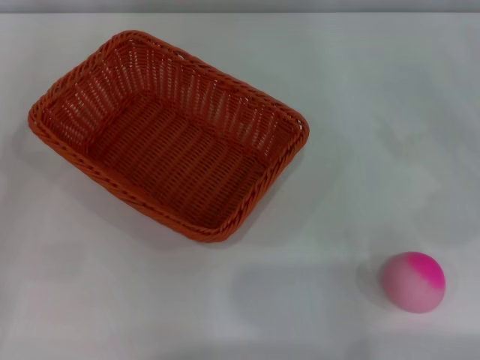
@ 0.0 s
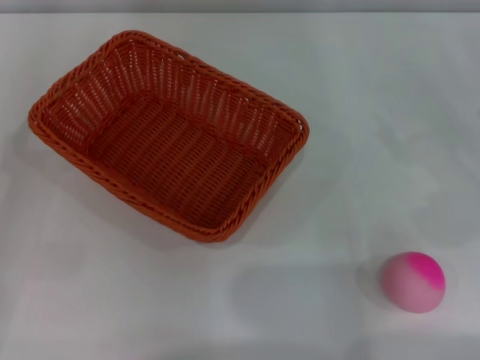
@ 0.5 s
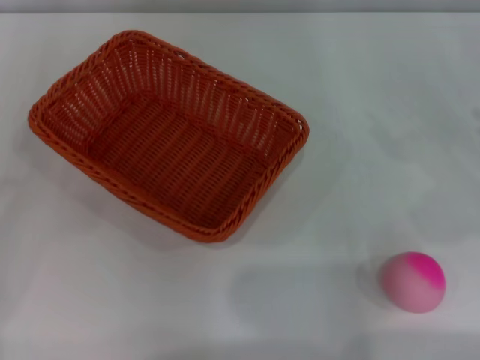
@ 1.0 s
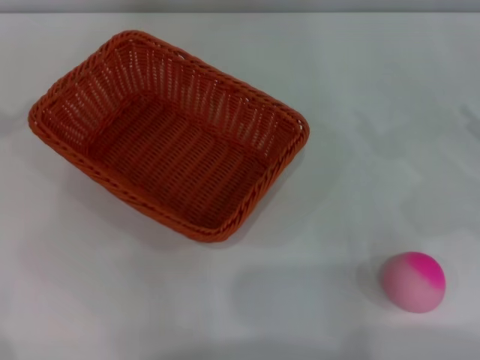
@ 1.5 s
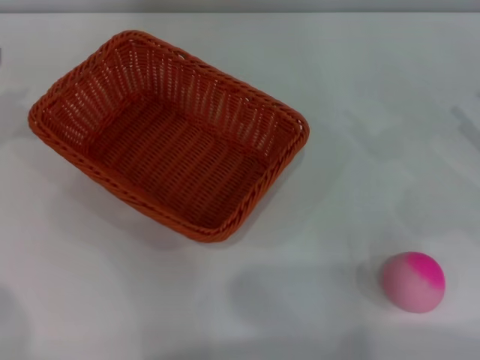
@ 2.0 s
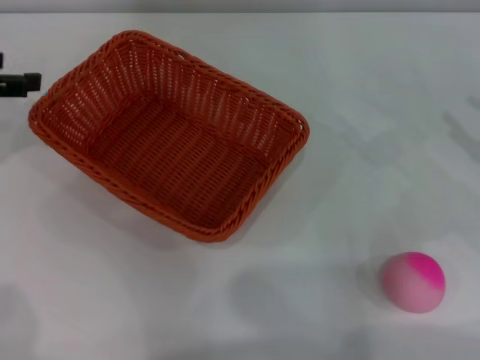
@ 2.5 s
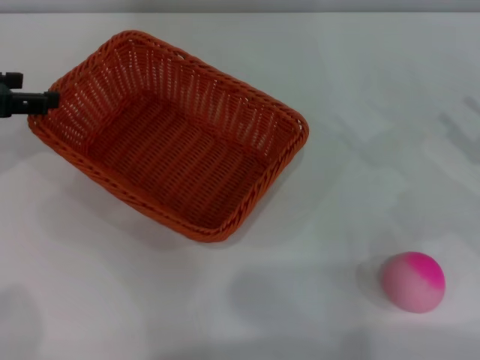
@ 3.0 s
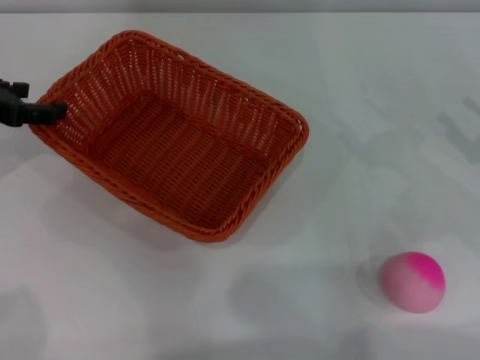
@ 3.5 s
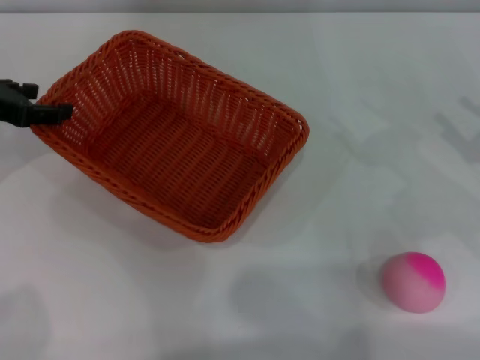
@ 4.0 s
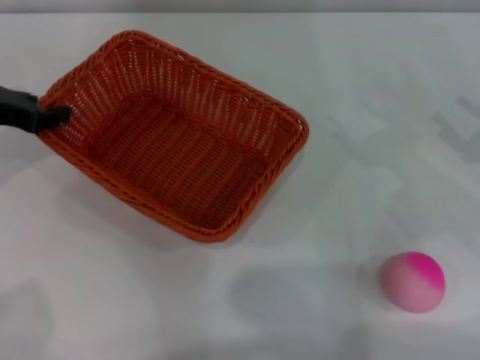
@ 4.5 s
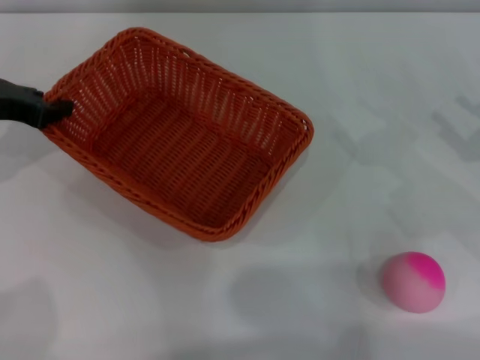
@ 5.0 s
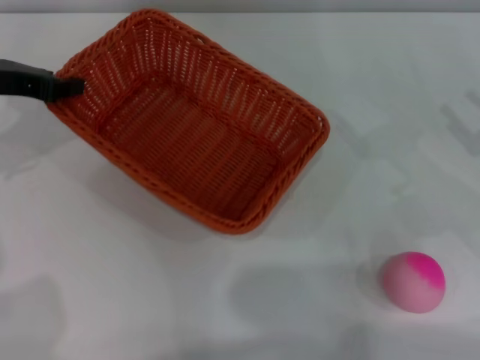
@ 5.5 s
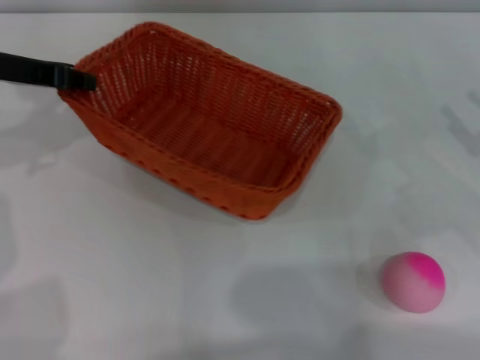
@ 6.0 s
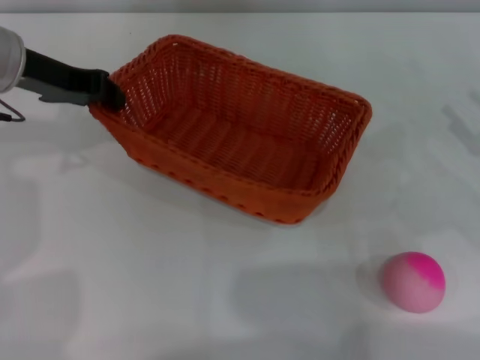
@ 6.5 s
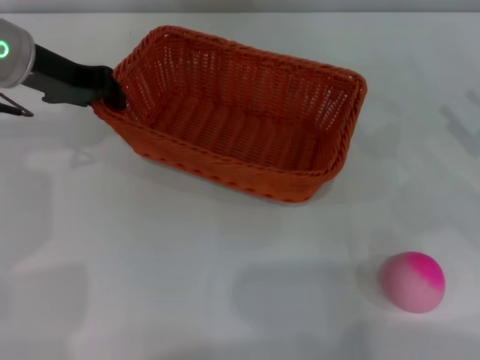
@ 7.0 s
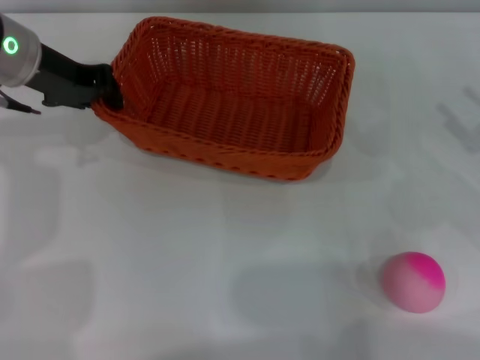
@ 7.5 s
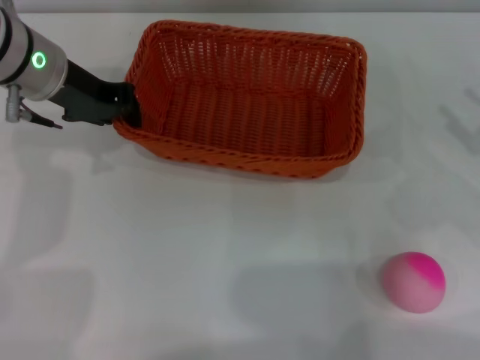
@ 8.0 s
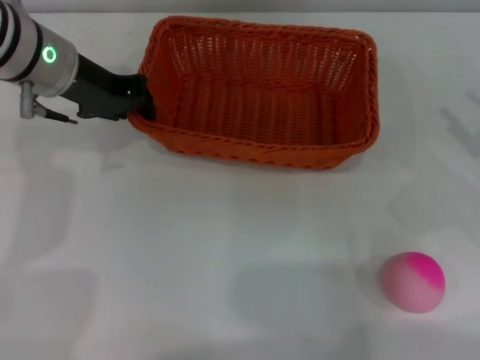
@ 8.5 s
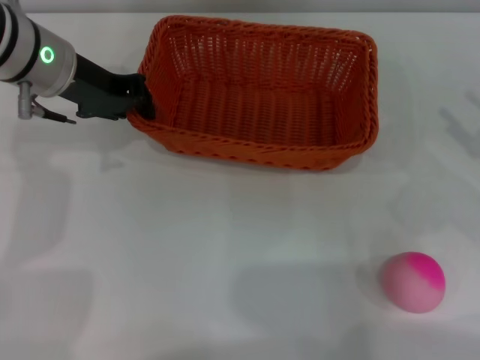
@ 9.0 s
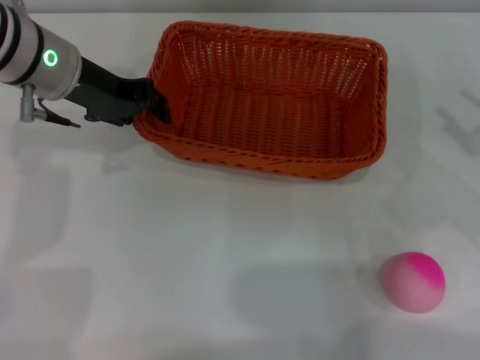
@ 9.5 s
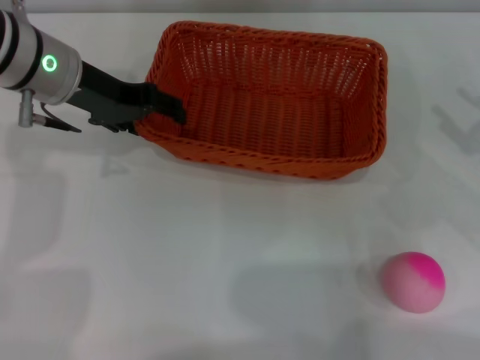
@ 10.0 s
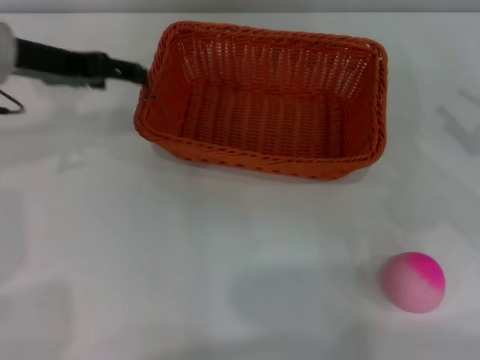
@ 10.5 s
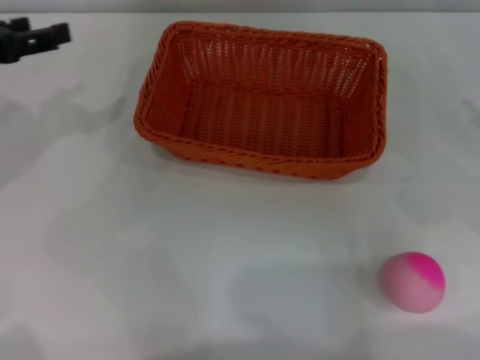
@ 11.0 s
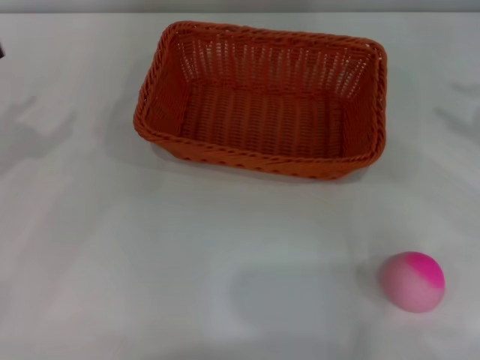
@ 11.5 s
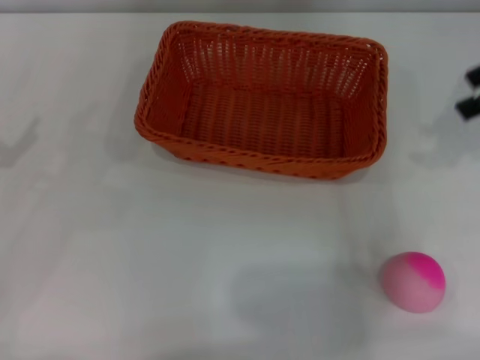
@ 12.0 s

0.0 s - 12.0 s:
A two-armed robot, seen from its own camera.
Step, 0.0 s - 5.5 s: Pick up the light basket with the left gripper.
Step, 6.0 s - 10.5 s: Place the light basket in the center of view with the right gripper.
2.0 s - 4.0 s: The left gripper is displaced downward by about 5 cm.
4.0 s - 6.0 s: The left gripper travels to the right by roughly 5 cm, and closes its fingers.
6.0 s - 8.0 s: The left gripper heads to the right, covering some 10 cm.
8.0 s - 10.0 s: The left gripper opens its fingers.
10.0 s - 12.0 s: The left gripper shifts roughly 25 cm to the left and backward. The right gripper shifts about 20 cm upward and forward.

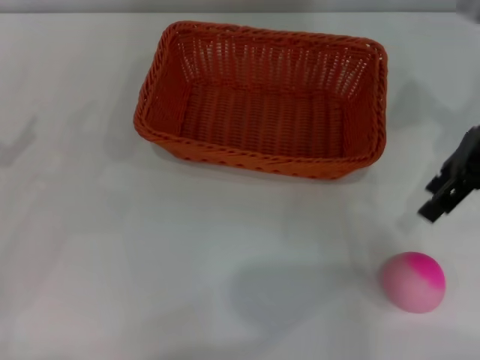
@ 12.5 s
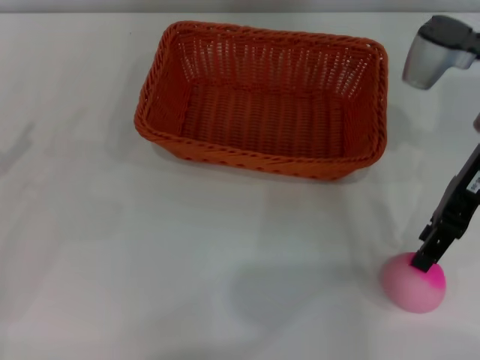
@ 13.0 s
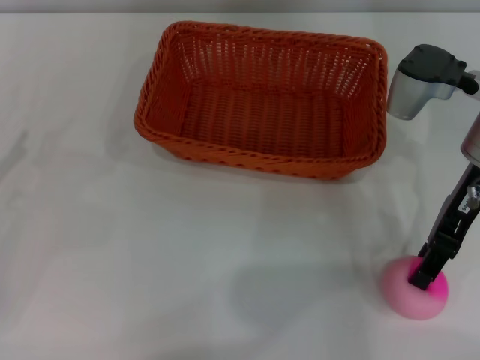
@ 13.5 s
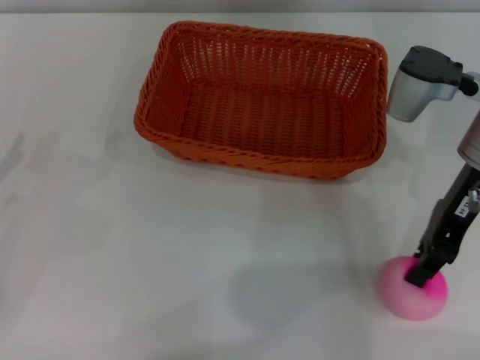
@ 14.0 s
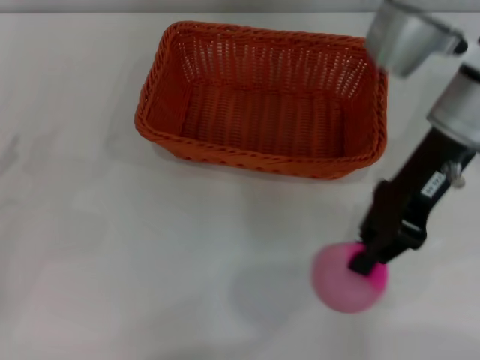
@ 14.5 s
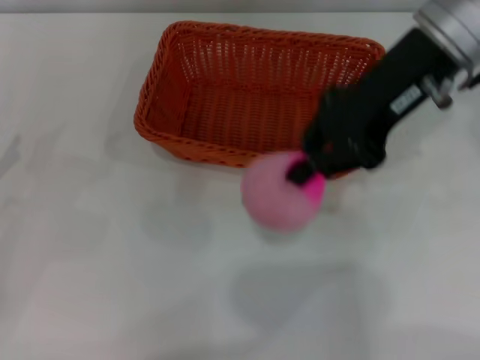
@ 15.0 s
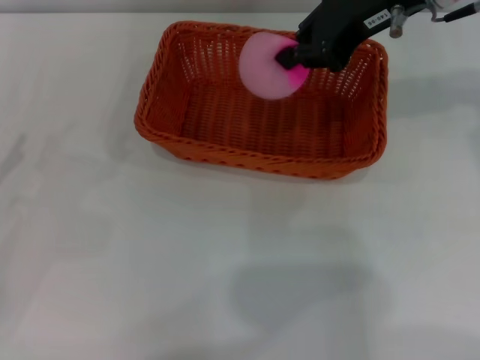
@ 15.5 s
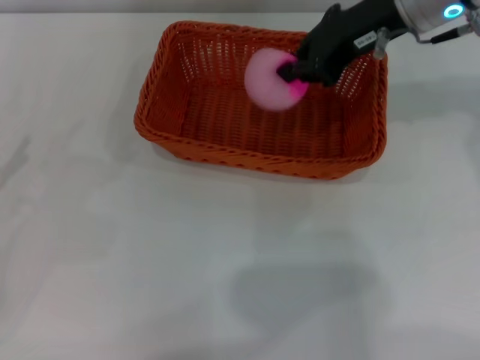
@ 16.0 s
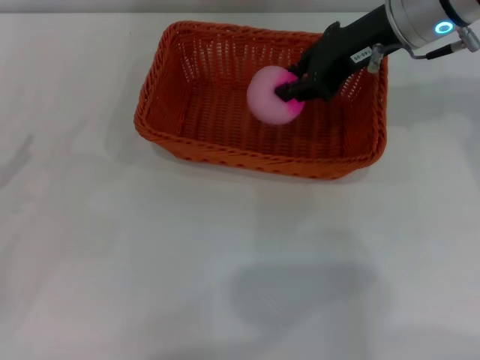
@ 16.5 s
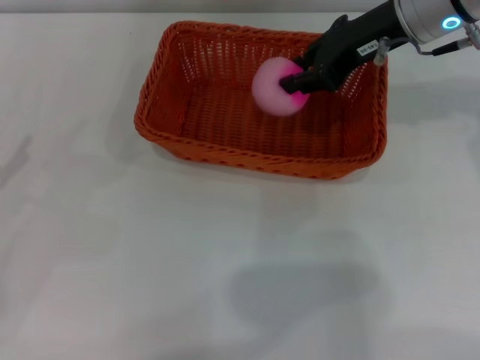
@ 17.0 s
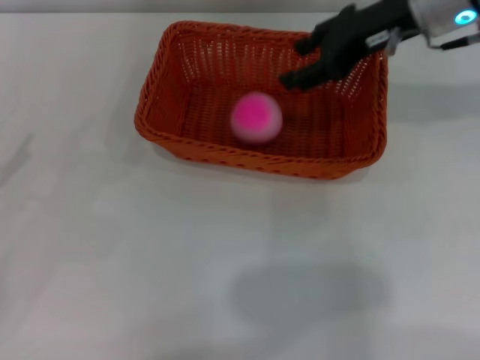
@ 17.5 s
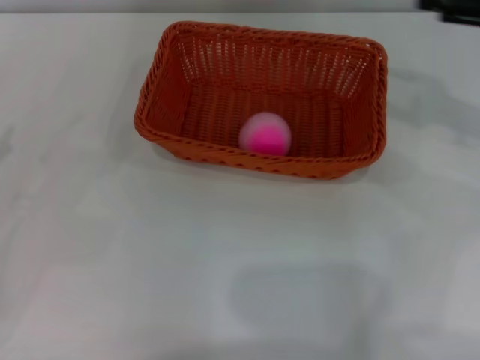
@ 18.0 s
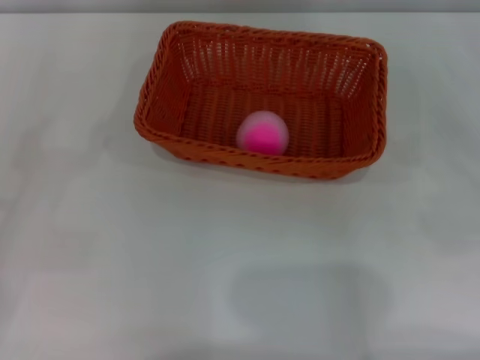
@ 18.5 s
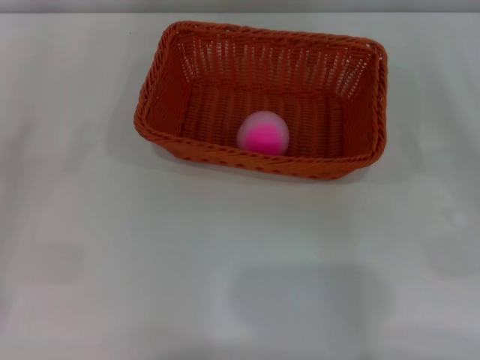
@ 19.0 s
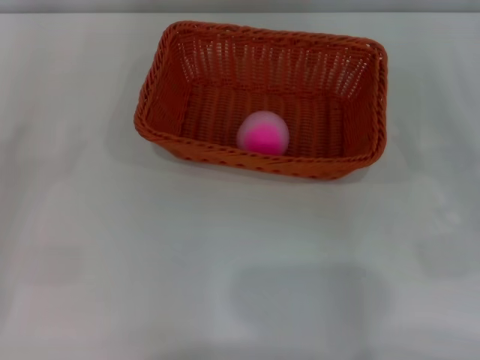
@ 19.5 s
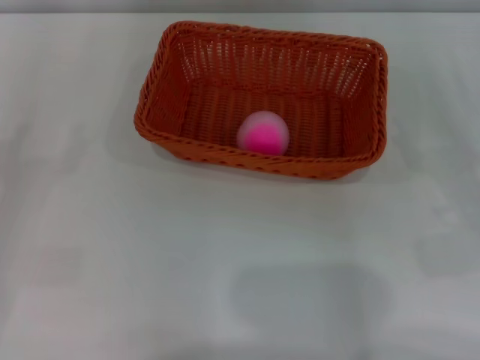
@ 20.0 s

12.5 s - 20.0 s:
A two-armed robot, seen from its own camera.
Step, 15.0 s - 17.5 s: Place the peach into the basket with the left gripper.
12.5 s - 14.5 s: The right gripper goes about 10 cm to the left, and closes up.
14.5 s - 16.5 s: The right gripper travels forward by some 5 cm.
16.5 s - 18.0 s: The right gripper travels to the right and backward by about 15 cm, and opens up.
18.0 s - 20.0 s: The right gripper travels downward and backward by some 20 cm.

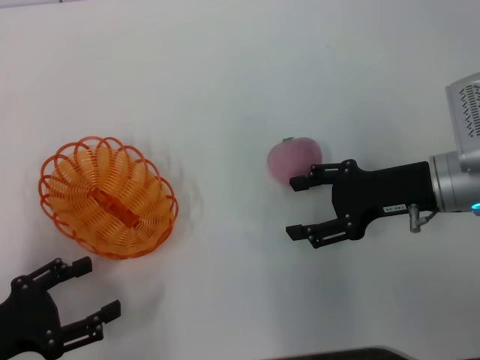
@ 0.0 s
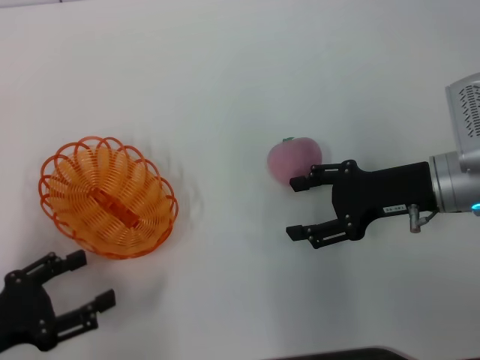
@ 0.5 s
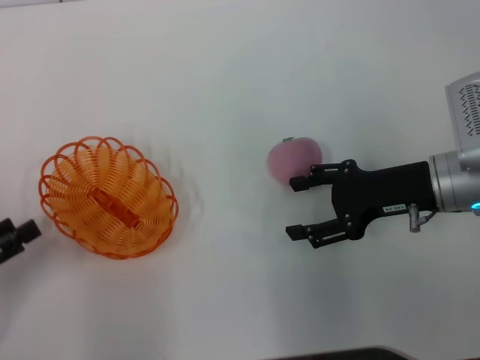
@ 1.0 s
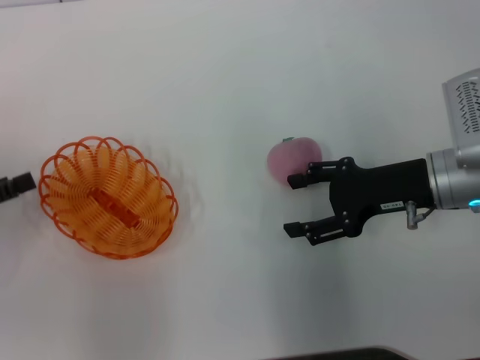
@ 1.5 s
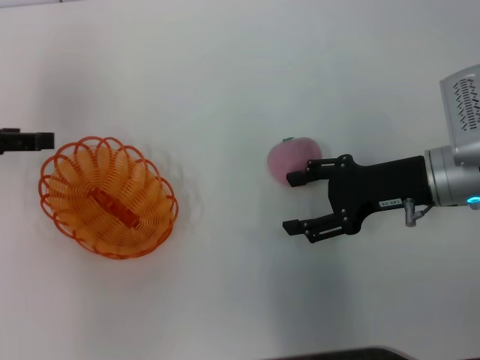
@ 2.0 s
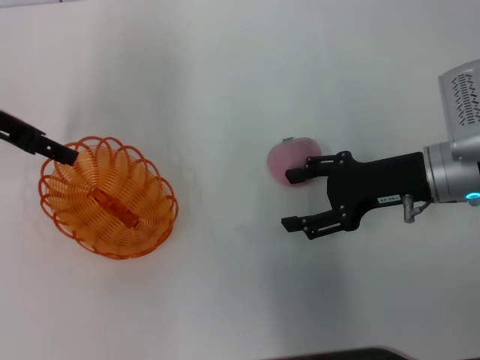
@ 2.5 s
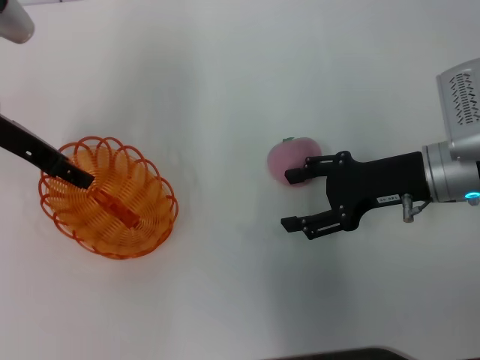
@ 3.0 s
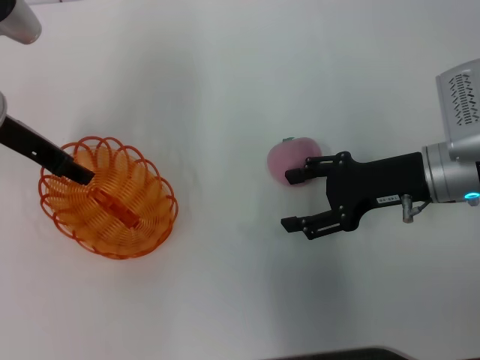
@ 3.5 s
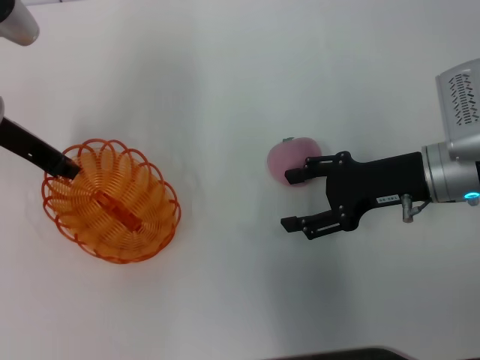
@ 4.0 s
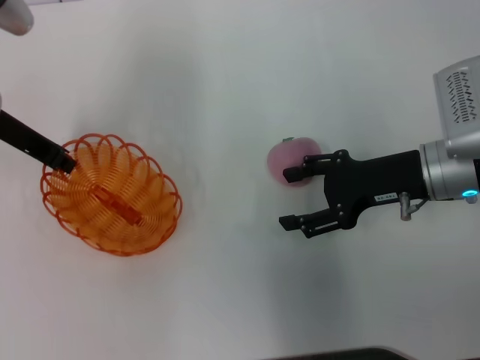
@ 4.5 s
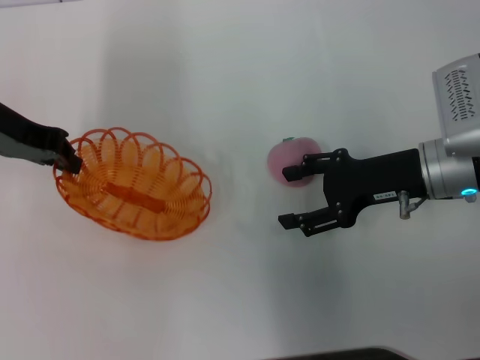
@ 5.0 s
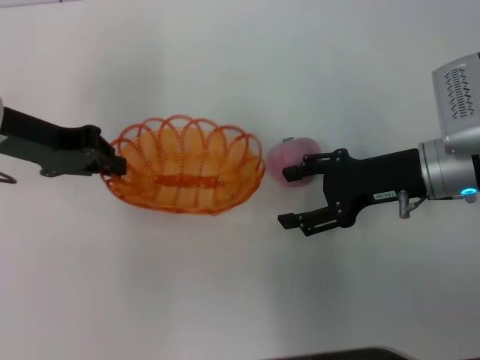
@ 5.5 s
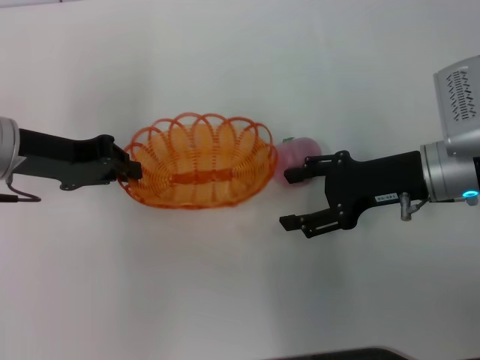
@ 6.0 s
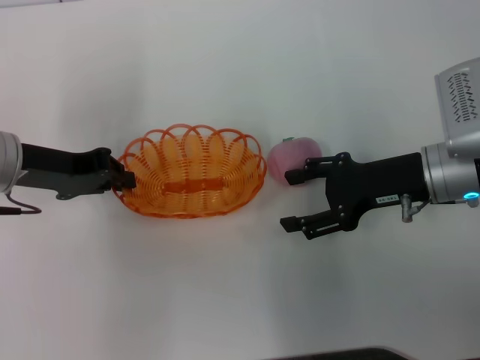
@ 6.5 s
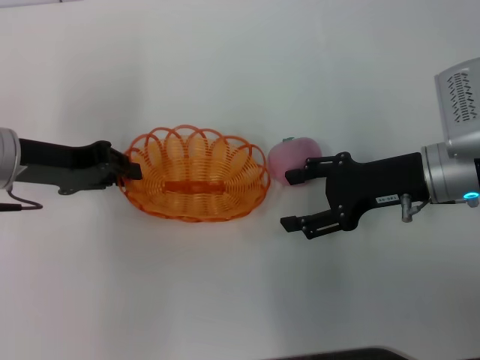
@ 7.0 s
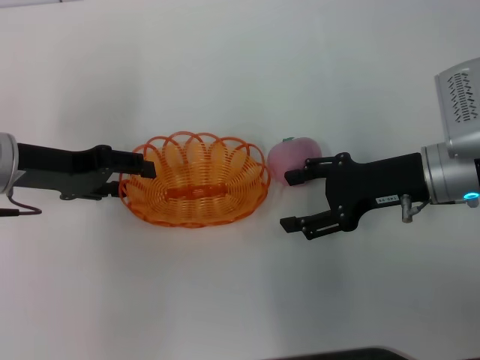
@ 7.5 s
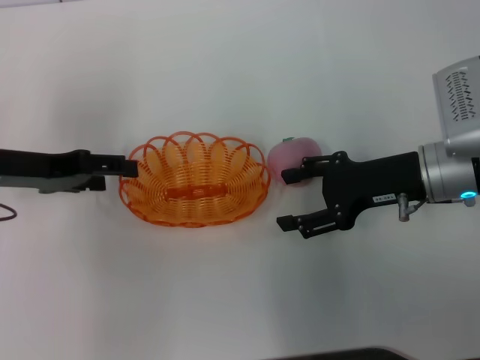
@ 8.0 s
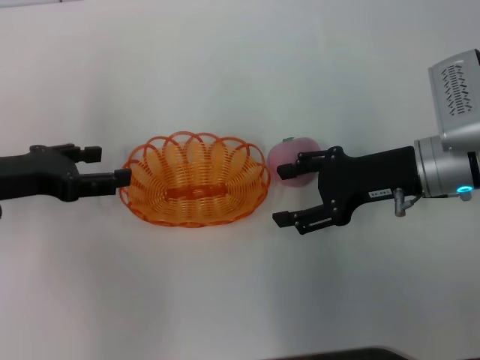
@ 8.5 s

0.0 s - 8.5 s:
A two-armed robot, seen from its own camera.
Step, 0.0 s - 4.5 s: Pick up the basket with the left gripper.
Step, 5.0 s - 7.5 s: Place the basket in the center of view with the left gripper.
0.0 s - 2.0 s: The left gripper is displaced forward and upward by some 20 cm.
2.0 s - 4.0 s: The left gripper heads to the right, covering approximately 10 cm, and closes up.
4.0 s - 6.5 s: The left gripper moves approximately 5 cm, and closes its fingers.
6.5 s - 8.5 s: The left gripper moves about 5 cm, and opens.
